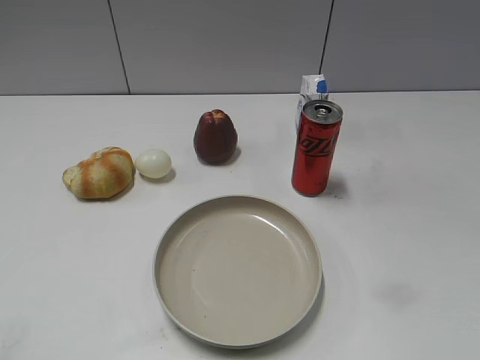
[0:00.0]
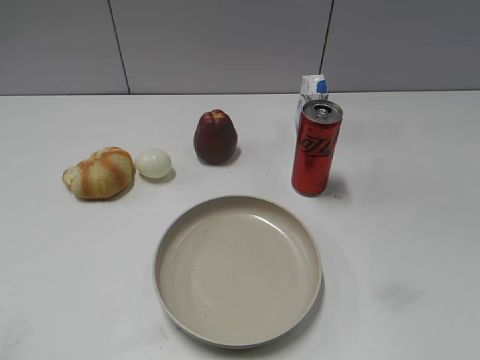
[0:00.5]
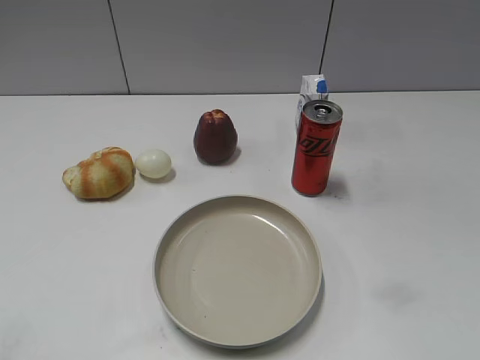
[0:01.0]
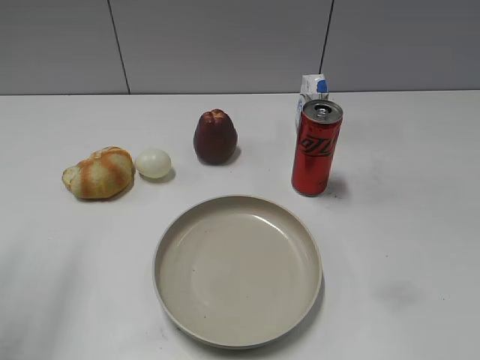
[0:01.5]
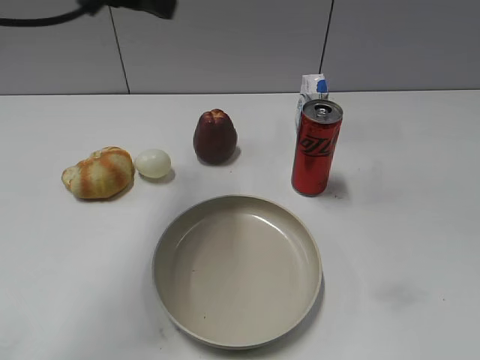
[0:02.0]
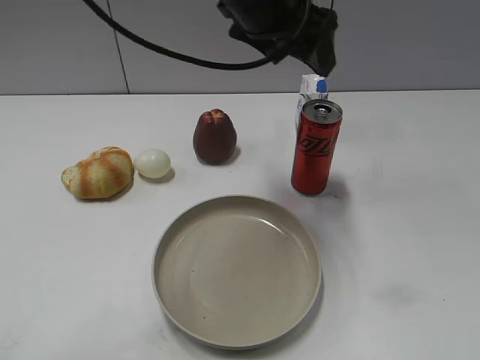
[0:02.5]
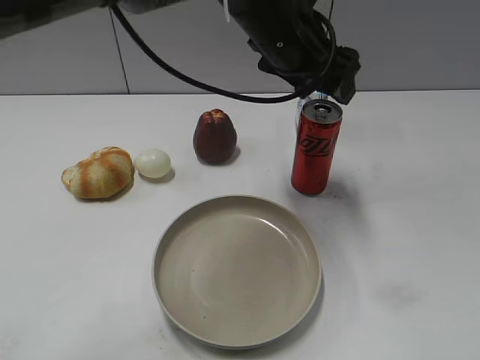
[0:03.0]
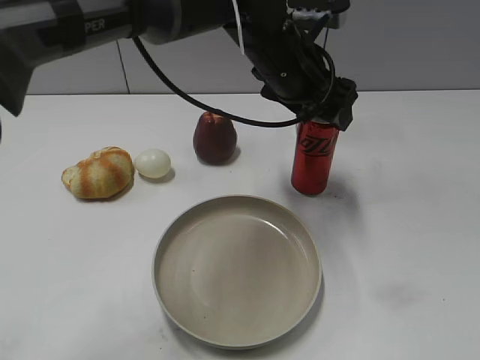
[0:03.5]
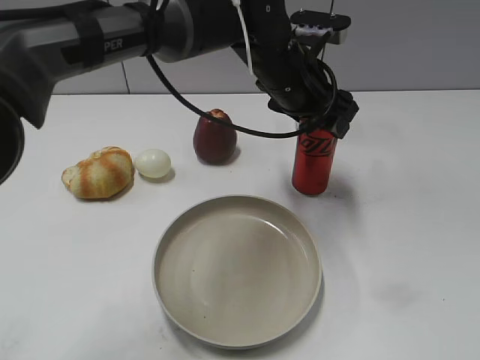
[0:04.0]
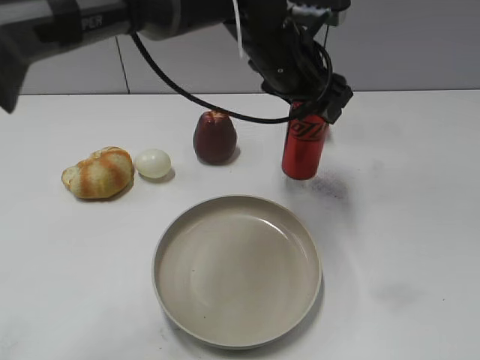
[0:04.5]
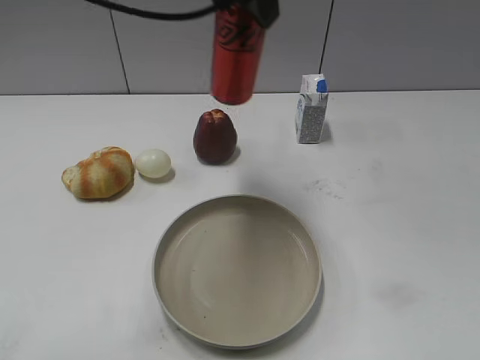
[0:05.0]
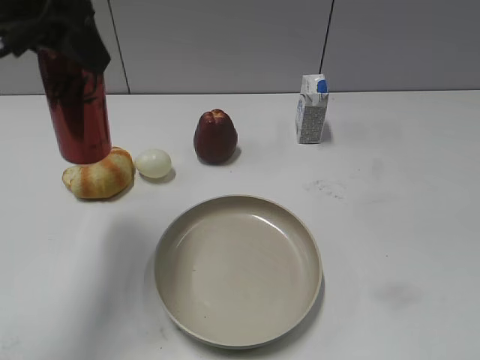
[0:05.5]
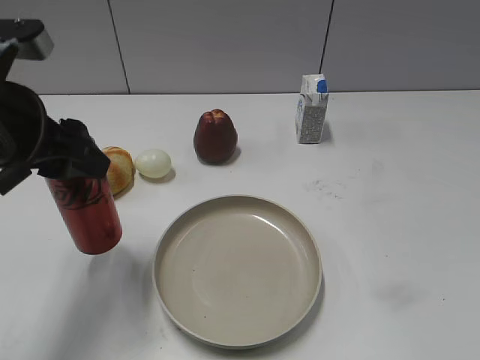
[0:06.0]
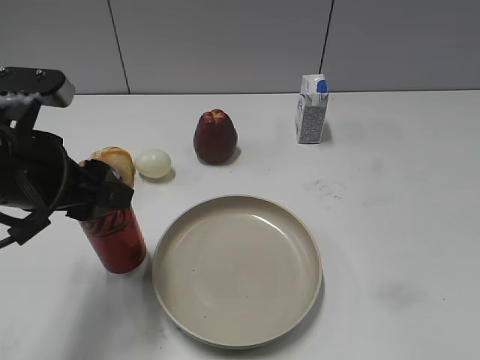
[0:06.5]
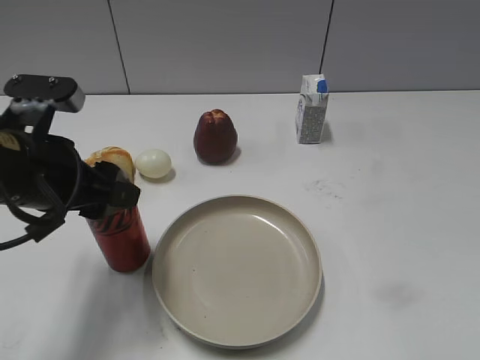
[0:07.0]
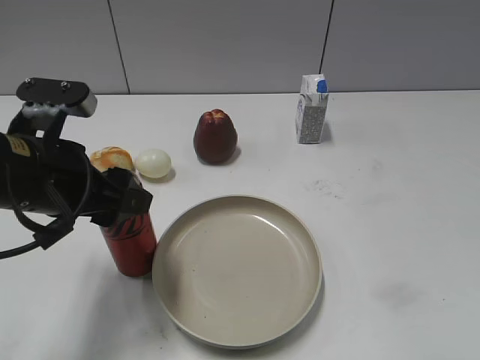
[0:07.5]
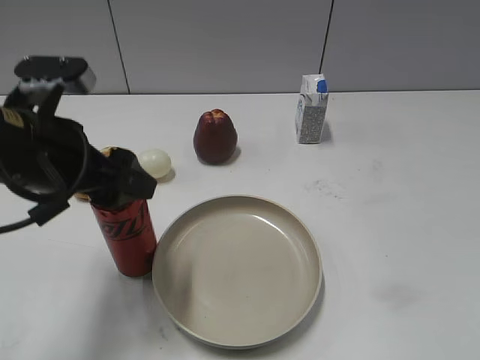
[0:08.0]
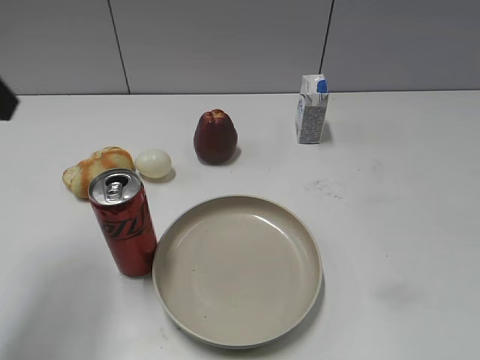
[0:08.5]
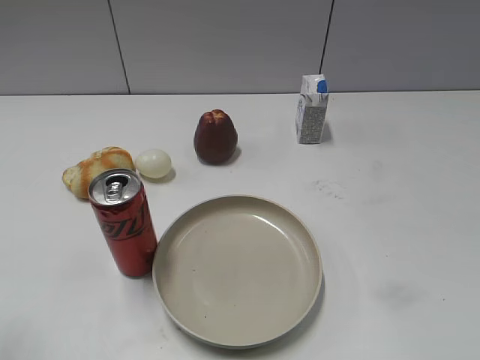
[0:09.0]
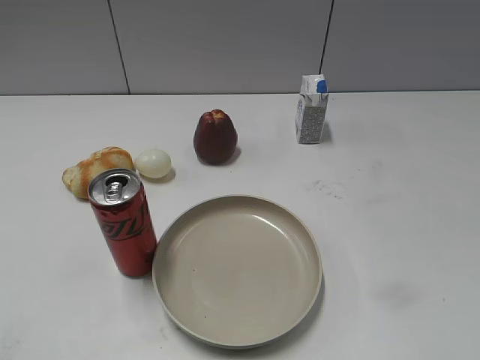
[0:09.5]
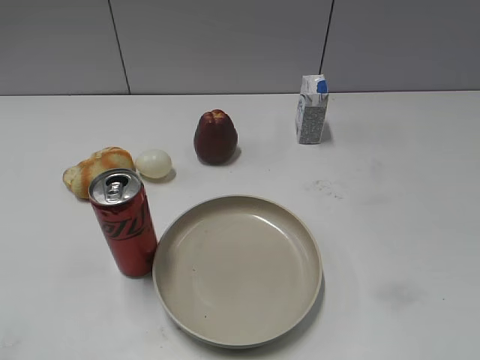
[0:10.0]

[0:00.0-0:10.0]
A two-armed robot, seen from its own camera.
Step, 0:01.0 to 0:04.0: Grasp the cola with left gripper.
Step, 0:04.5 to 0:08.0: Place the cola on the table with left gripper.
0:02.0 to 0:04.0: The left gripper goes approximately 25 cm to the right and downward, and opens and closes again.
0:04.0 to 0:06.0: The left gripper travels to the left and backward by approximately 30 cm, and closes its fingers.
0:06.0 to 0:08.0: The left gripper heads downward, covering about 5 cm, and opens.
0:08.0 to 0:10.0: The left gripper is displaced backward and to the left by approximately 25 cm, and closes its fingers.
